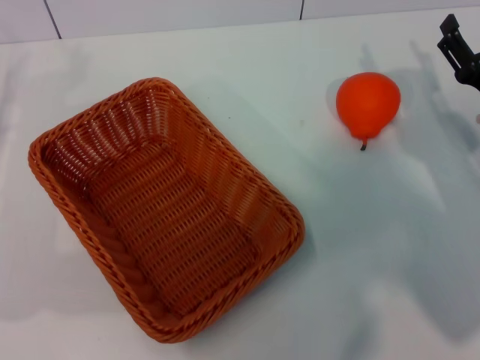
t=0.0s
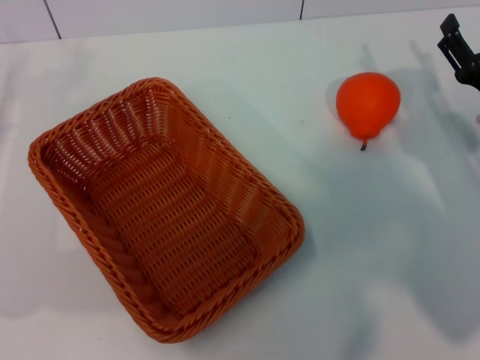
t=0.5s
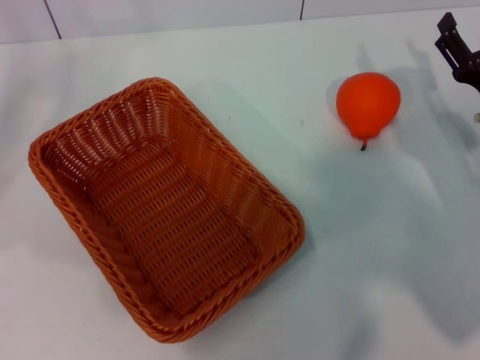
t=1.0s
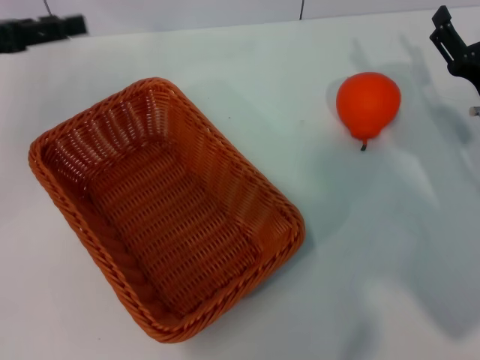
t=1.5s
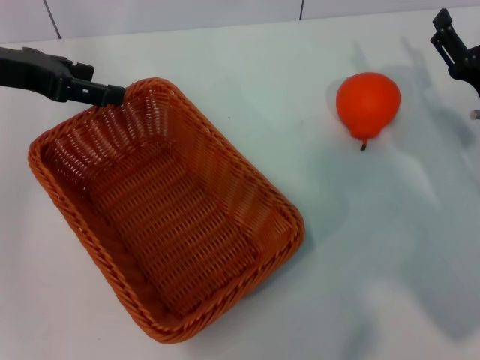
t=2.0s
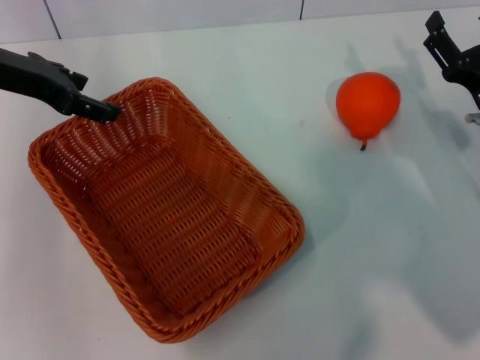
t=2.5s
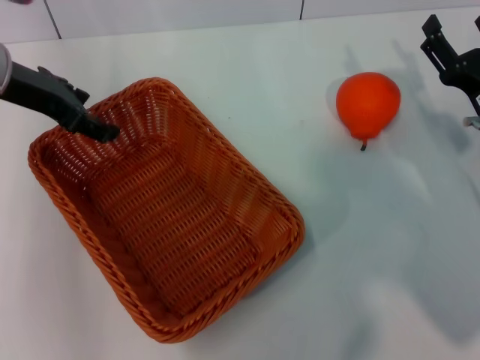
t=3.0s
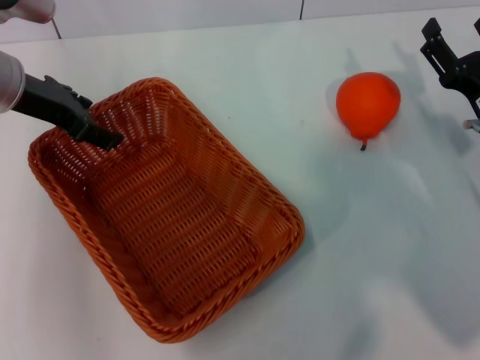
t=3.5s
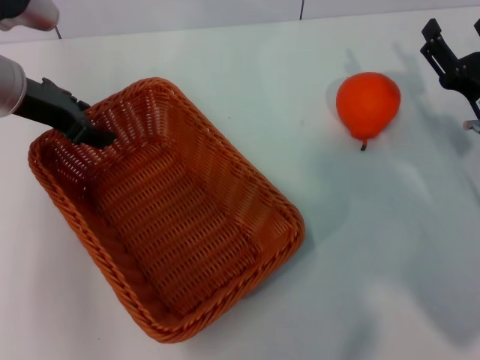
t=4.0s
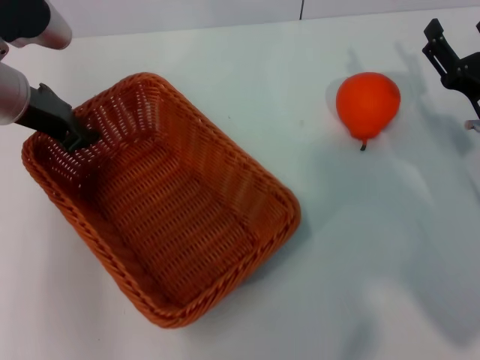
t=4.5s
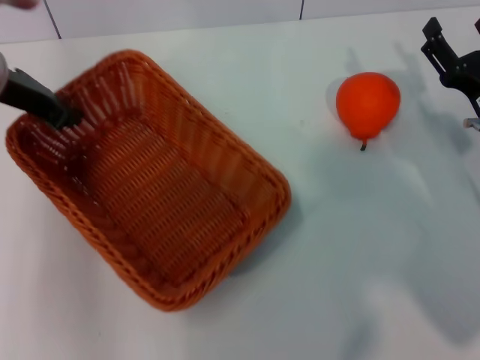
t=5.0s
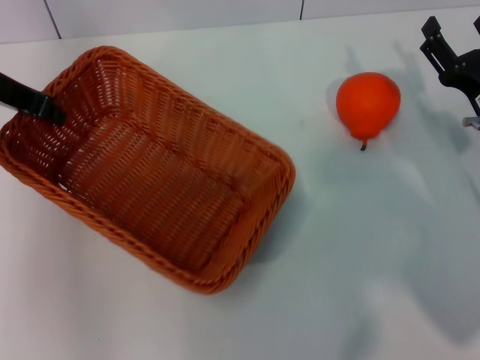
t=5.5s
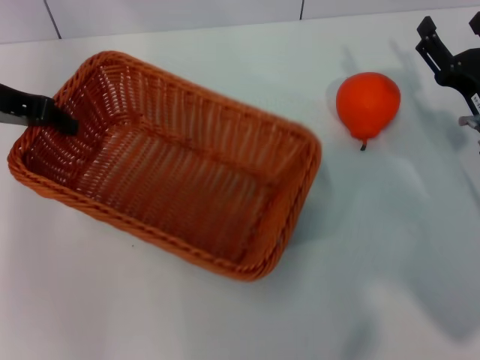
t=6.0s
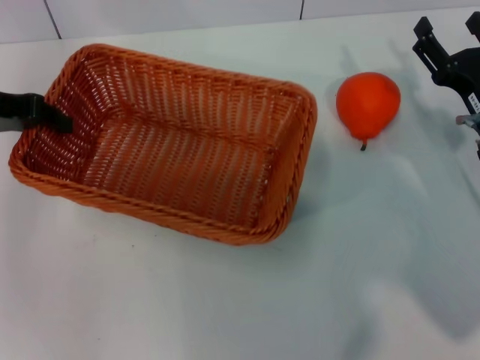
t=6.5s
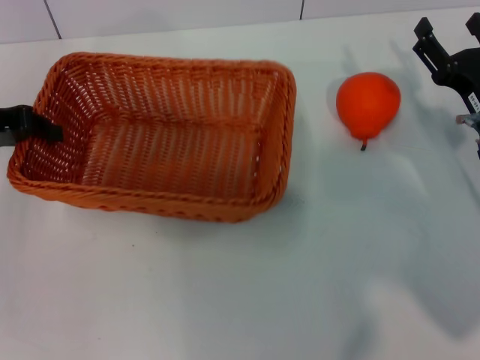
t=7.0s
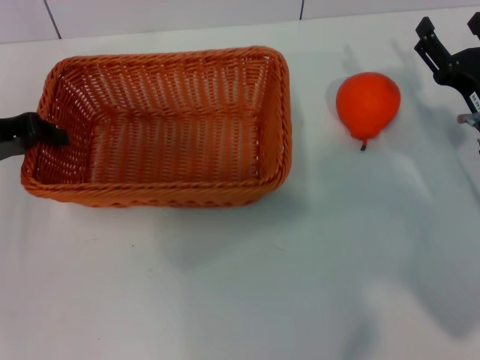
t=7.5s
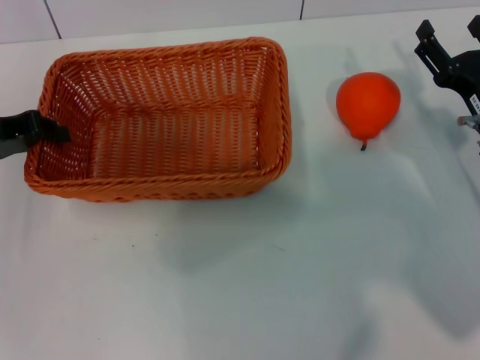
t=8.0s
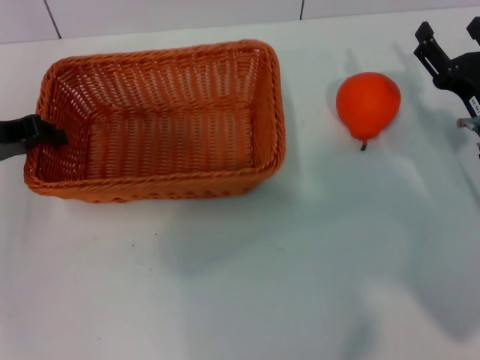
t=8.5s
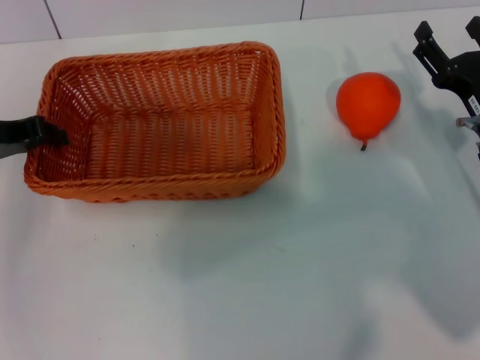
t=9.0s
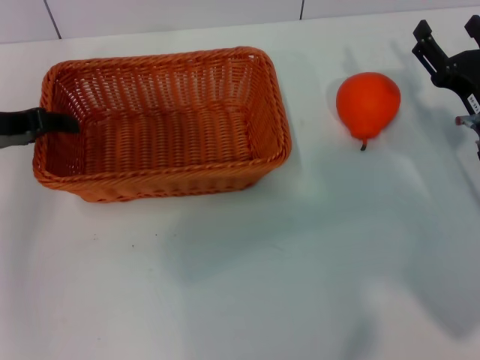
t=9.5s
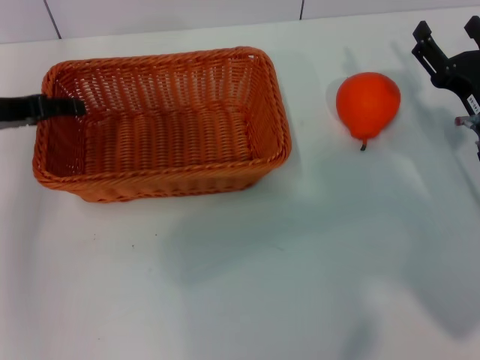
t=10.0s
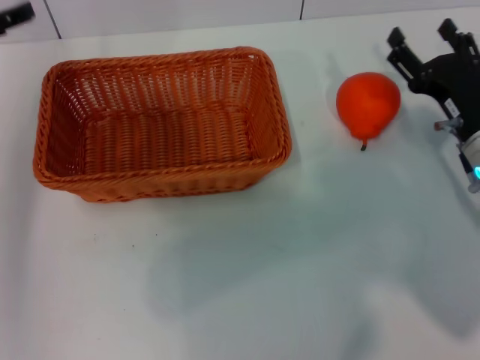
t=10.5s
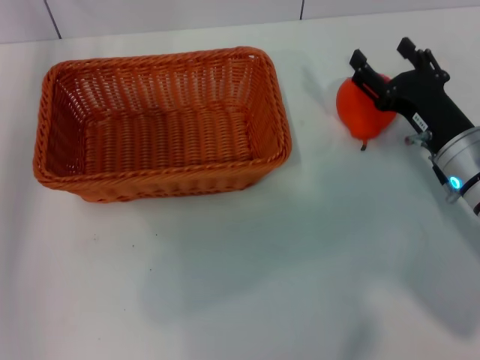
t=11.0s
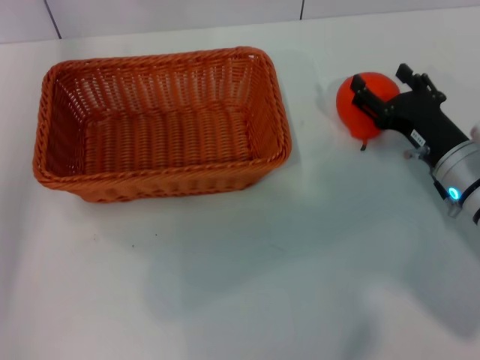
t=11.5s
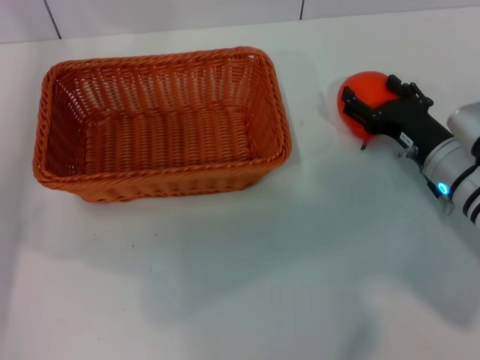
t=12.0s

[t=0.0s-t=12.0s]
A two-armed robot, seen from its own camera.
Task of the whole recording: the left gripper pick up the yellow basket and place it horizontally in the middle of the table, the right gripper pick up the orange and place it into the yellow basket.
Step, t=0.0s to t=5.0s: Pick up the light basket with the left gripper.
Step, t=5.5s to t=10.0s: Place the light basket in the center of view with the left gripper.
t=0.0s to t=2.0s: The left gripper goes about 20 cm upward, forward and to the right.
t=2.0s to t=4.0s: The left gripper ends up roughly 5 cm from where it was.
t=4.0s to t=6.0s: The left gripper moves some 5 cm, and closes its fingers.
t=6.0s to t=8.0s: The left gripper heads downward, covering some 5 cm.
t=8.0s to t=10.0s: The left gripper opens up.

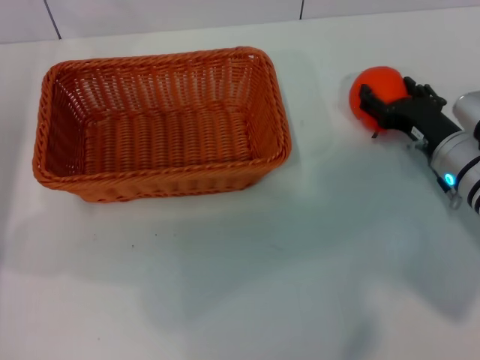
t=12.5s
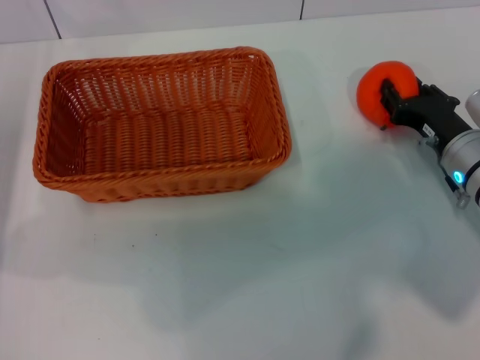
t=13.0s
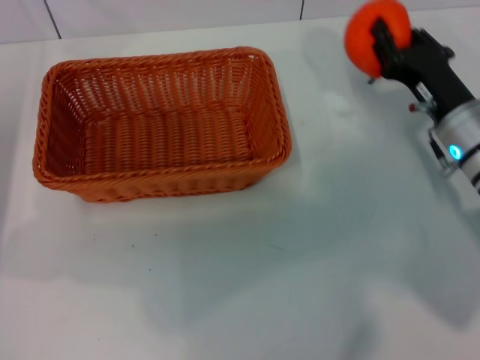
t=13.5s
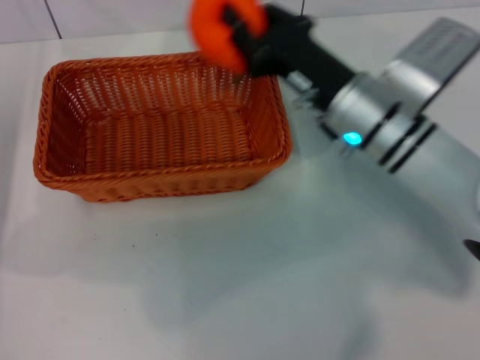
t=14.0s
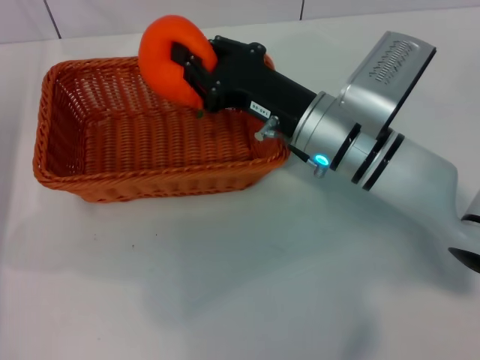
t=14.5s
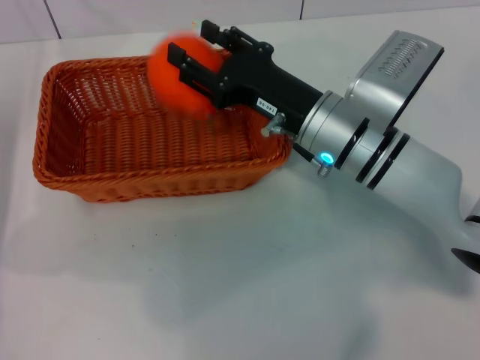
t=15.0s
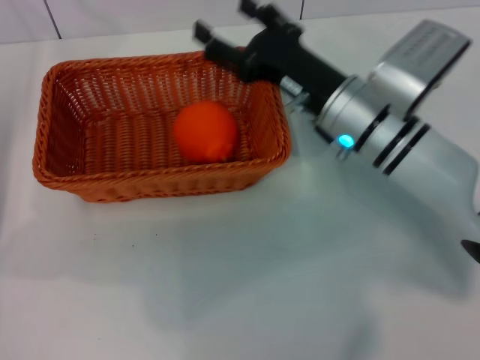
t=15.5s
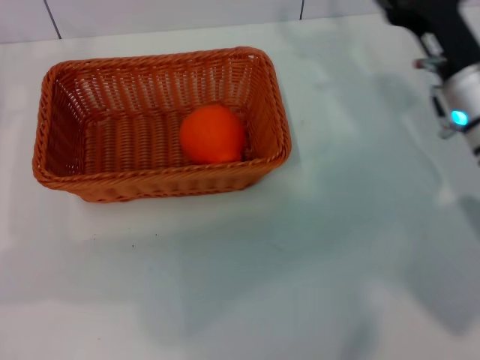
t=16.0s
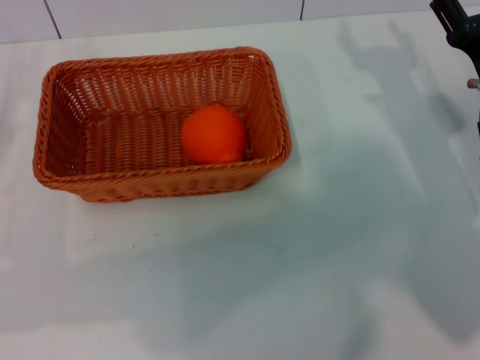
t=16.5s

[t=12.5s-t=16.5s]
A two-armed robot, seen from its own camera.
Task of the whole recording: the left gripper pick up the yellow basket and place it horizontally in the middle of the table, the right gripper pick up the orange and place it into the yellow basket.
Step, t=13.5s to t=15.0s: Place the orange into the light basket with the right gripper.
t=12.5s to t=14.5s: The right gripper goes roughly 15 cm to the left and upward, and closes its fingers.
t=14.5s to t=16.5s: The left gripper changes place by some 5 cm. The right gripper is displaced to the right by approximately 15 cm, and opens its fingers.
